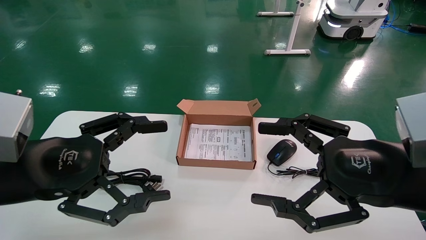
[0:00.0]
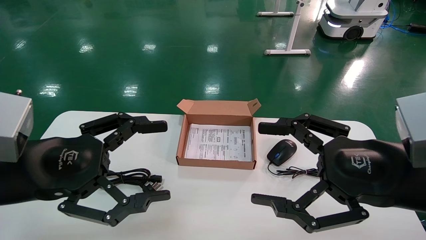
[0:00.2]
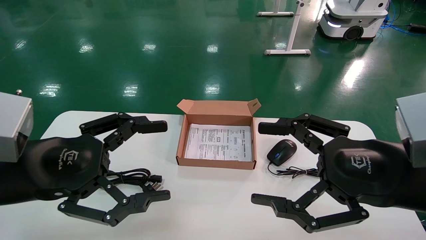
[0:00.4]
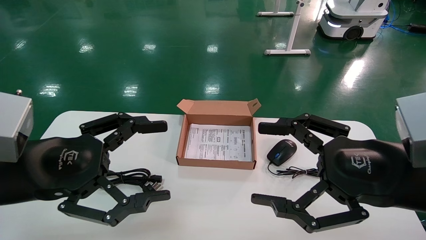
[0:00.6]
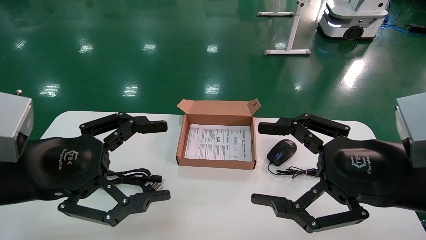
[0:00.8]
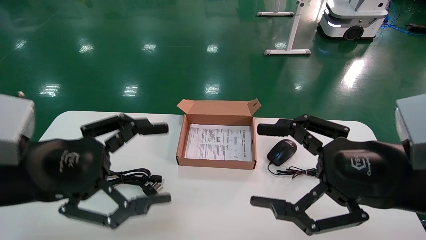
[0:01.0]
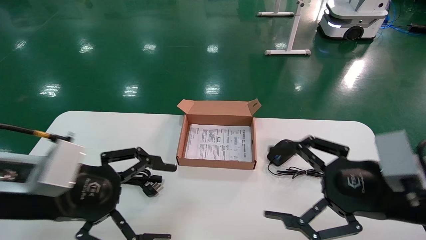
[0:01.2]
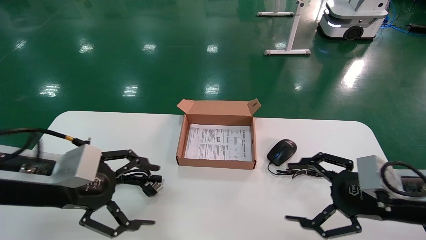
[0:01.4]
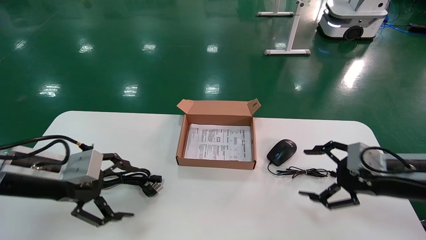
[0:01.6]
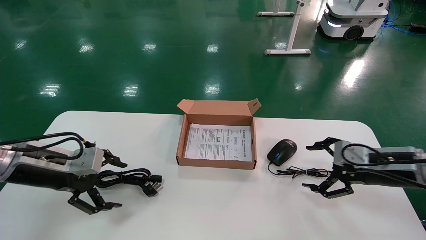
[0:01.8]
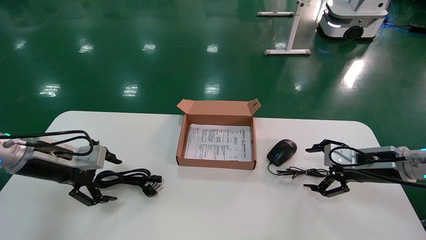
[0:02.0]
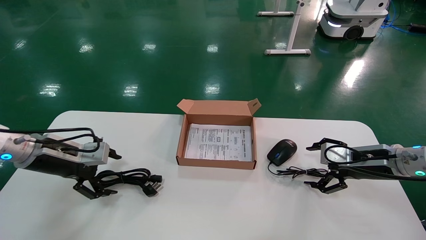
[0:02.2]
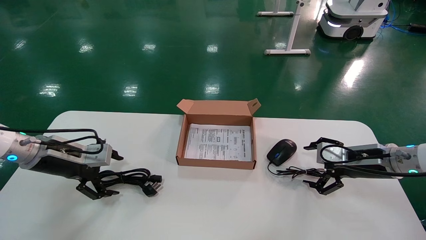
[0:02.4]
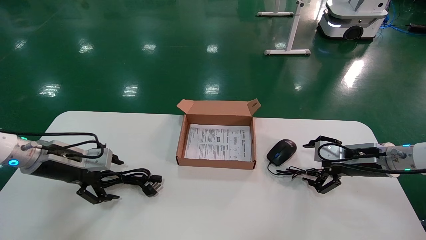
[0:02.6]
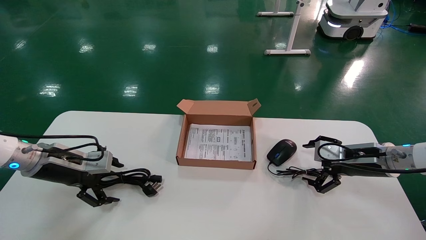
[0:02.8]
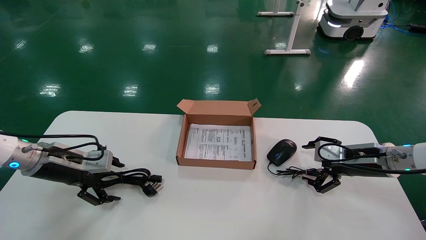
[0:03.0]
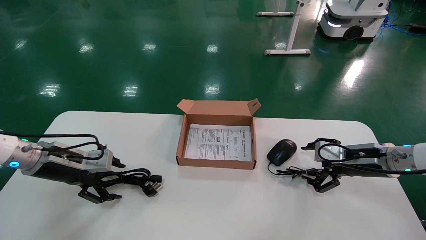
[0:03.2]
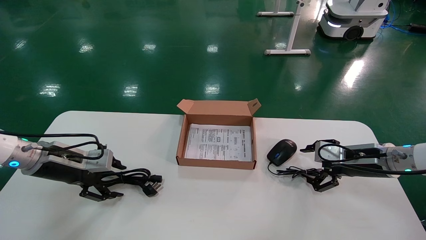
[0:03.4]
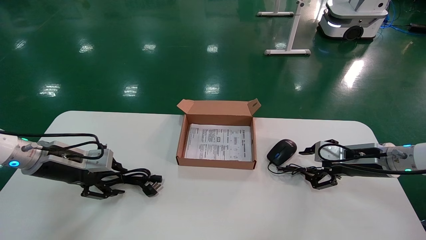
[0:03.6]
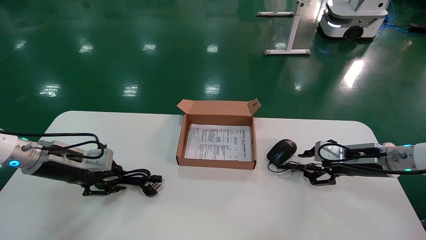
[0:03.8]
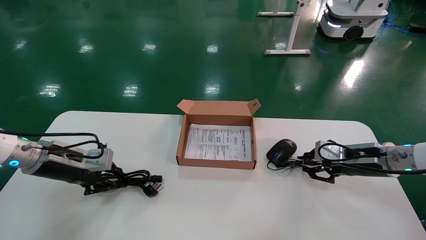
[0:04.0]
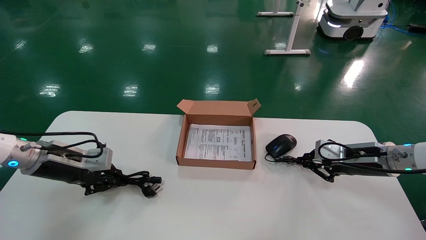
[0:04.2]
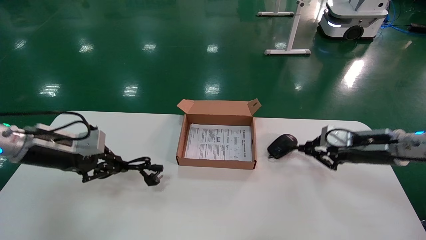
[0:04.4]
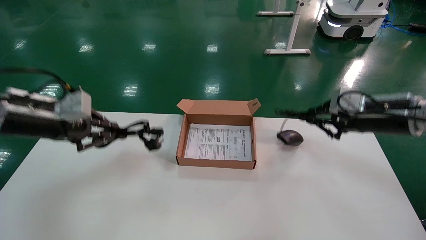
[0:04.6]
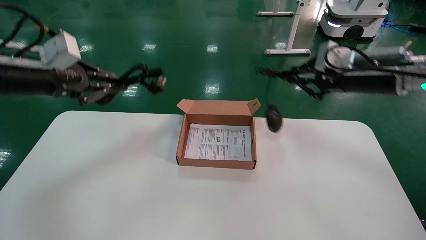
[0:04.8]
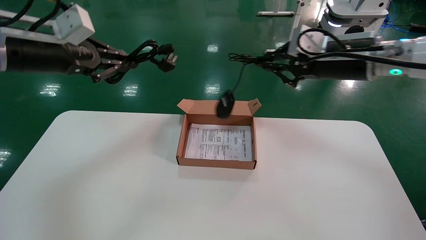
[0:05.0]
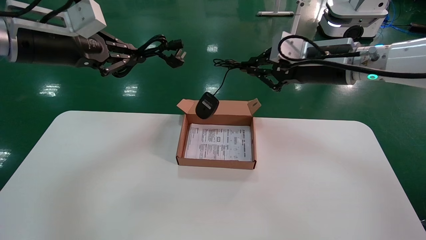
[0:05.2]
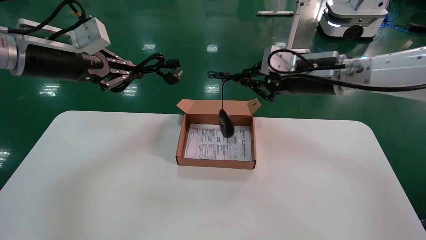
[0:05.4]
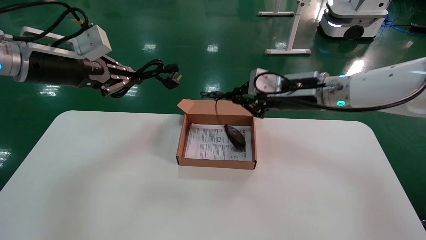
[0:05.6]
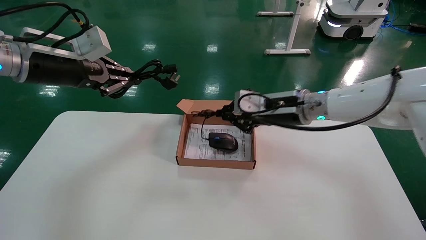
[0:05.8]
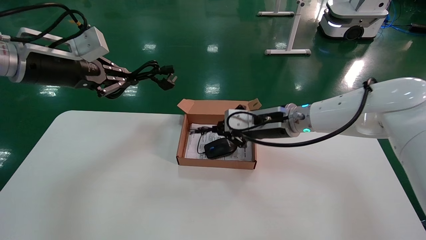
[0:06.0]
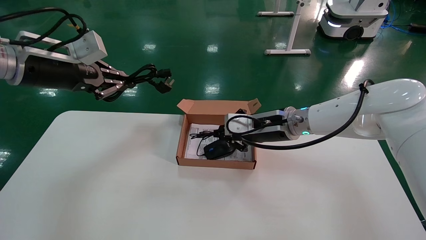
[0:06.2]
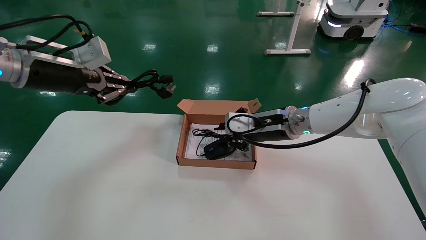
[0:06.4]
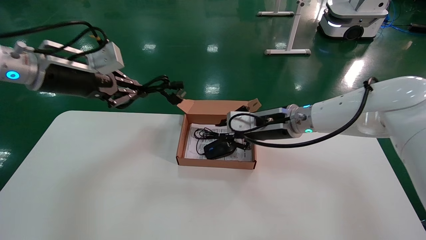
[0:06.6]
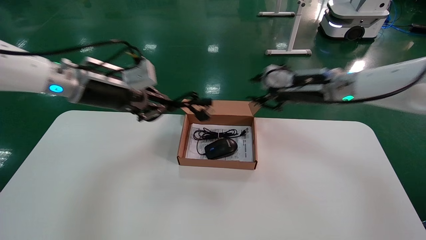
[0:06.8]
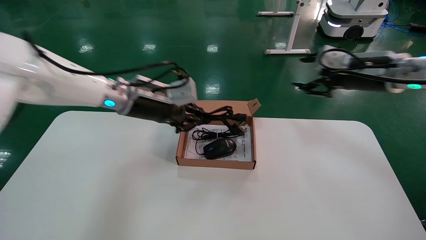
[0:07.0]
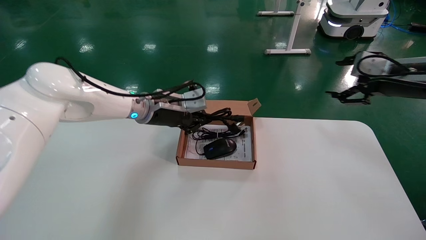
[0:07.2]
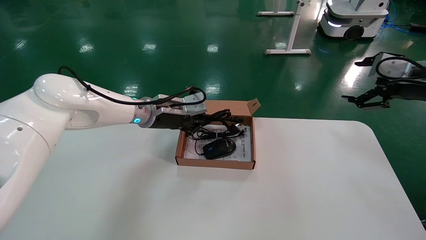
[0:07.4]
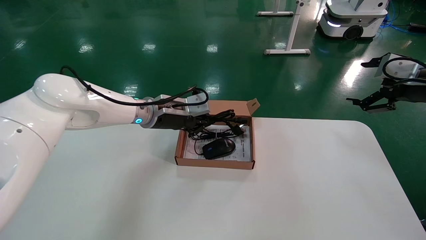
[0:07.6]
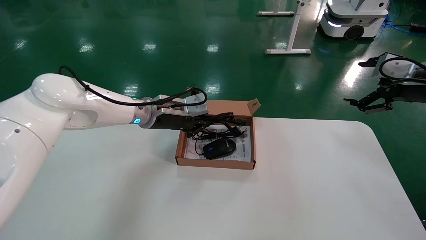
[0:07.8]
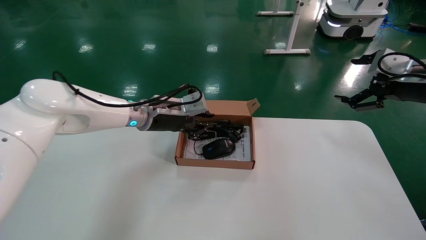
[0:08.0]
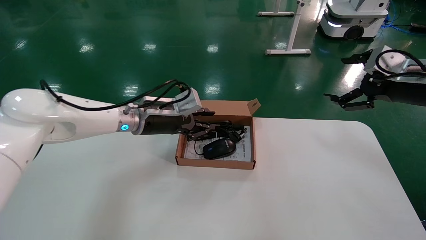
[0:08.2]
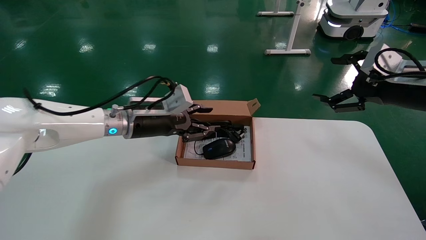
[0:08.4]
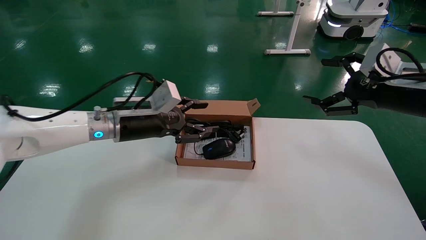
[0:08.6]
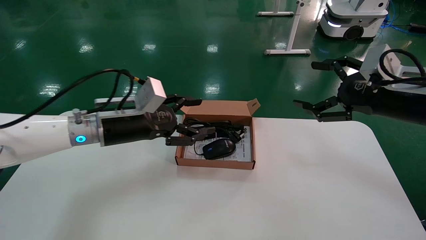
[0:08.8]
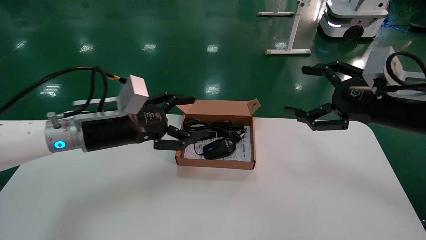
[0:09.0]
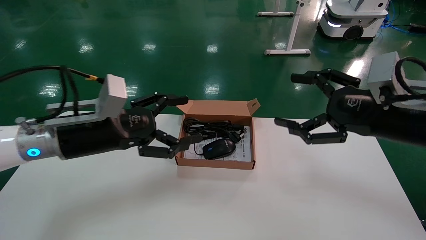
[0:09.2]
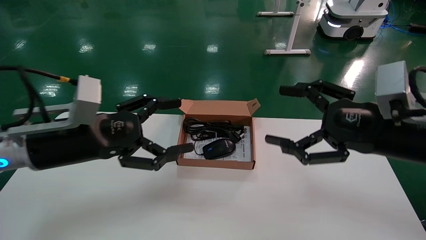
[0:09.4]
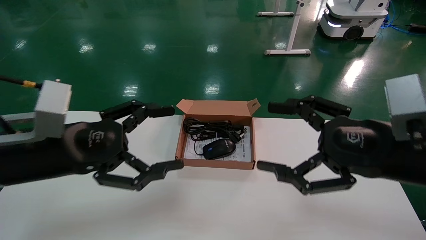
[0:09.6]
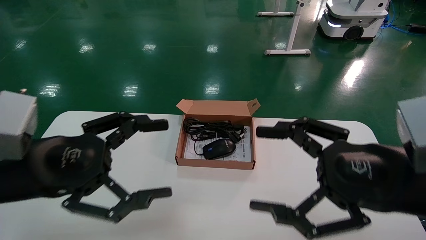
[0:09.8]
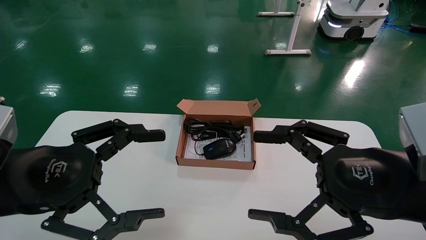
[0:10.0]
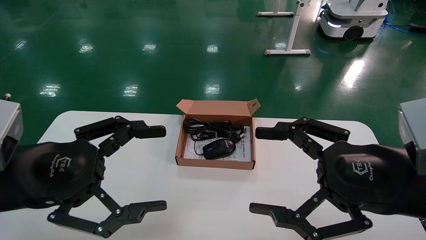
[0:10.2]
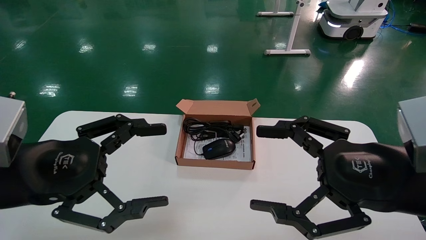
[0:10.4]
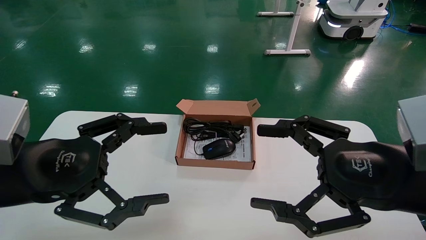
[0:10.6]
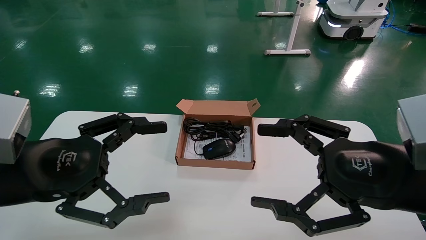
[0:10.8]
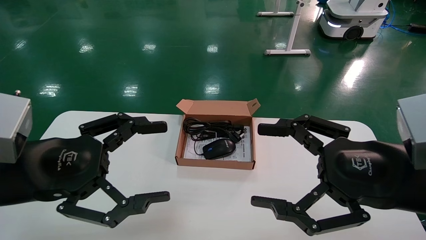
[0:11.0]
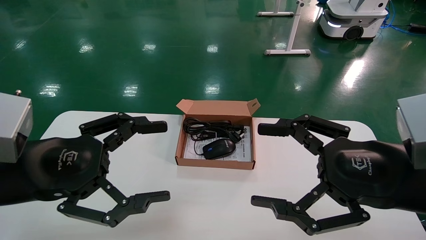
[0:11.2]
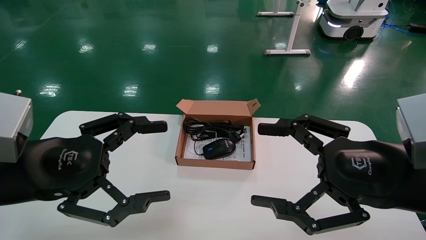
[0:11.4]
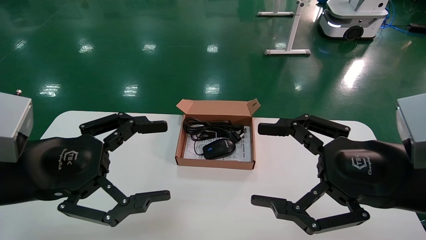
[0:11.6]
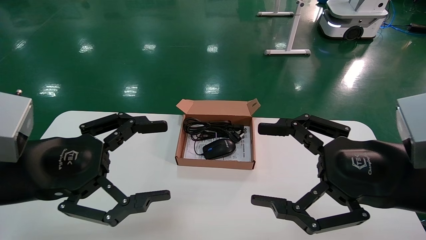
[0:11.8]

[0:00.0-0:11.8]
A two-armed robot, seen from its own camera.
Step, 0:01.4 to 0:04.4: Grab and lift both the mouse and power cord from the accessory packaging area at the same time.
Step, 0:04.6 to 0:08.0: Place the mouse and power cord into the box.
0:00.0 to 0:01.4: The left gripper moves forward, some 5 cm, while the right gripper heads forward, downward and to the right, covering some 10 cm.
0:01.4 to 0:03.0: The right gripper moves forward, approximately 15 cm. The left gripper travels forward, to the left and downward by roughly 15 cm.
0:03.0 to 0:04.4: Both grippers travel together upward, approximately 5 cm. The left gripper closes its fingers. The right gripper closes up.
0:04.4 to 0:06.0: The left gripper shifts about 15 cm upward; the right gripper is displaced to the left by approximately 20 cm.
0:06.0 to 0:07.4: The right gripper is displaced to the right by about 25 cm, and opens its fingers. Meanwhile the left gripper moves to the right, downward and forward, some 25 cm.
0:07.4 to 0:08.8: The right gripper goes some 10 cm to the left and backward, while the left gripper heads backward and to the left, covering roughly 10 cm, and opens.
0:08.8 to 0:10.4: The right gripper heads backward and to the left, covering about 15 cm. The left gripper heads backward, covering about 20 cm.
0:10.4 to 0:11.8: Neither gripper changes place.

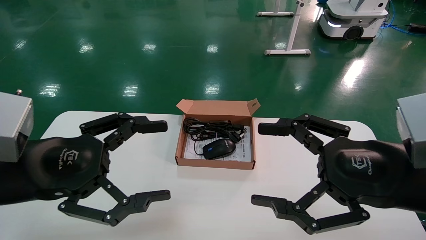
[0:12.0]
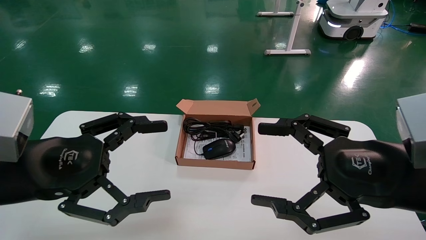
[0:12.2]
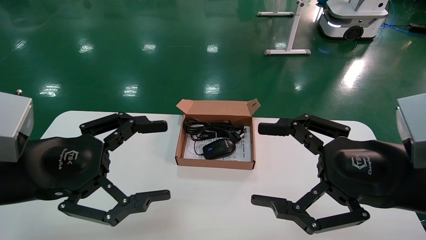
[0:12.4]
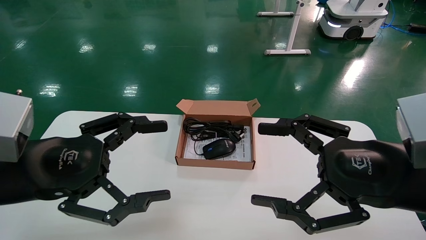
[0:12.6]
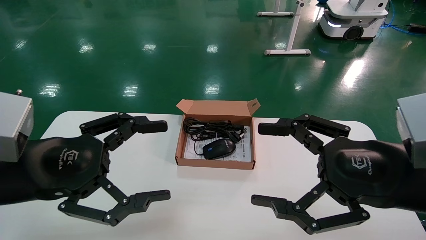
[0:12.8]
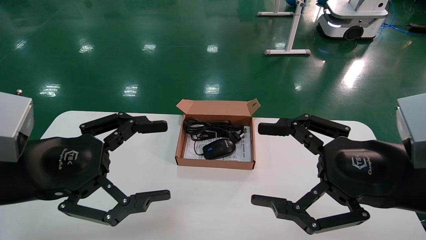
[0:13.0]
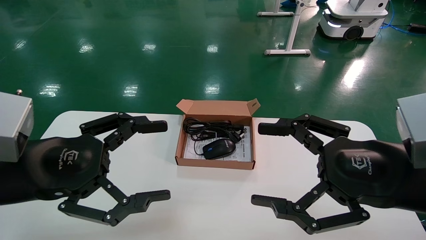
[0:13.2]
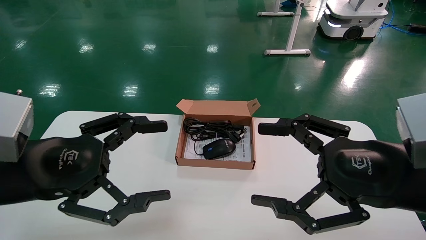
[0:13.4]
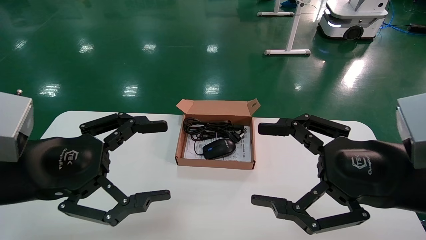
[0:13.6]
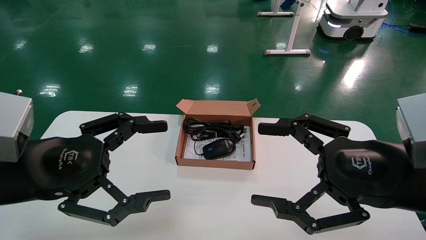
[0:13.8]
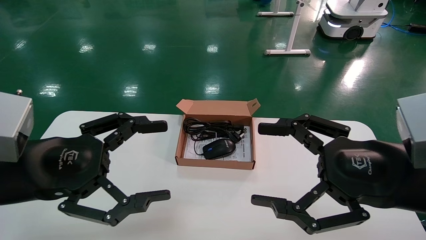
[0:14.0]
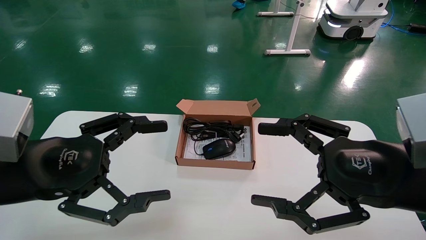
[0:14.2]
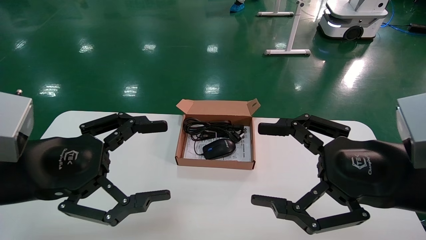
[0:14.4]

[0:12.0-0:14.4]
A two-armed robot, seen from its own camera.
0:12.0 to 0:14.4: Both grippers stay about where they are.
